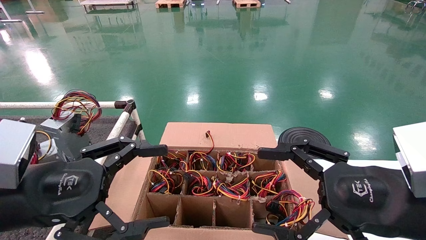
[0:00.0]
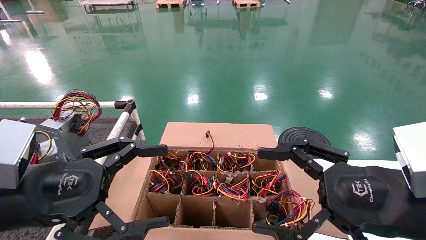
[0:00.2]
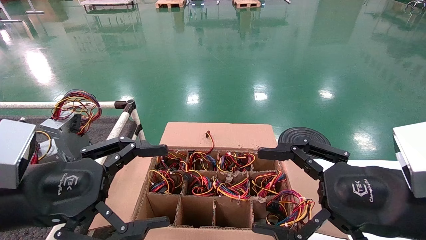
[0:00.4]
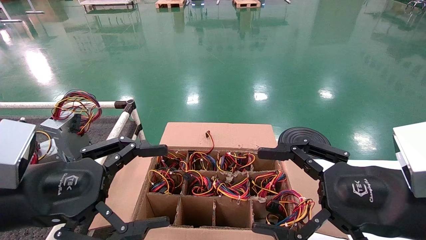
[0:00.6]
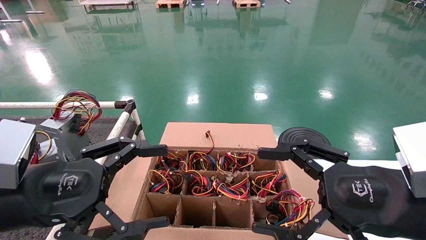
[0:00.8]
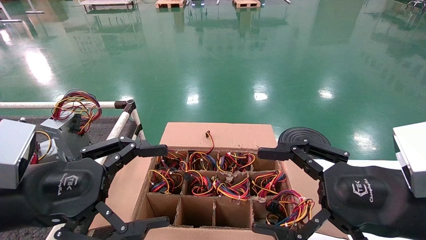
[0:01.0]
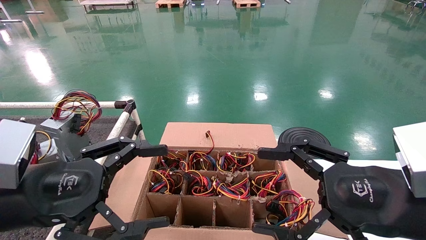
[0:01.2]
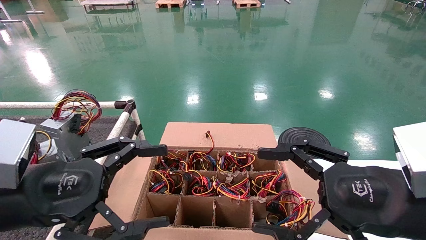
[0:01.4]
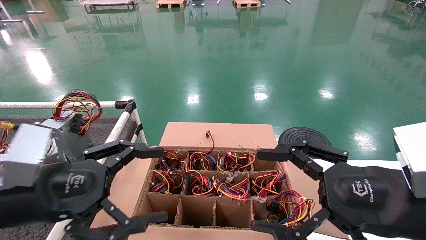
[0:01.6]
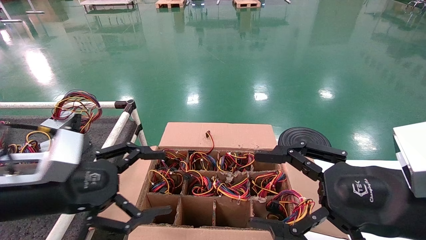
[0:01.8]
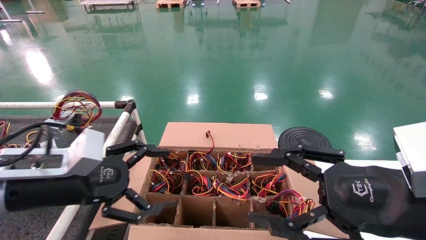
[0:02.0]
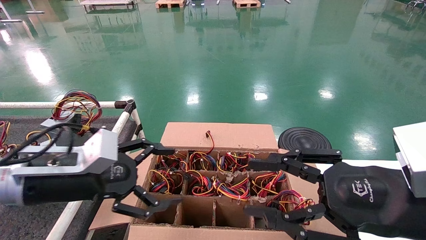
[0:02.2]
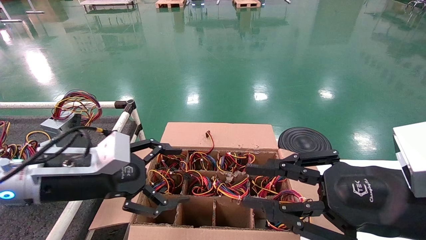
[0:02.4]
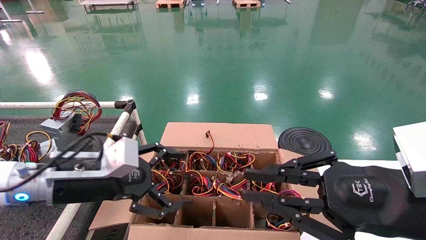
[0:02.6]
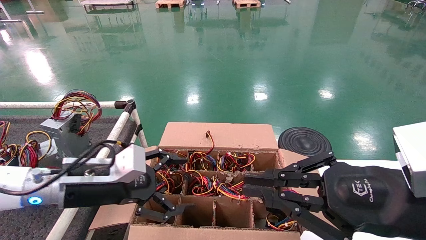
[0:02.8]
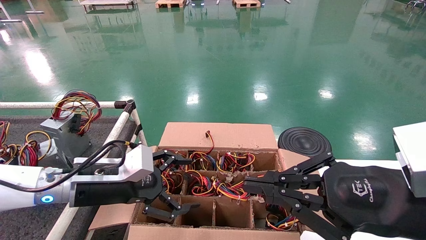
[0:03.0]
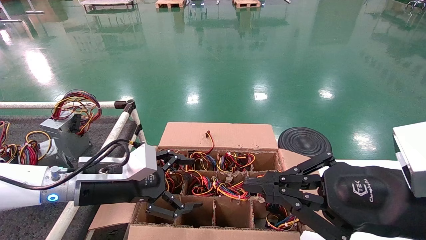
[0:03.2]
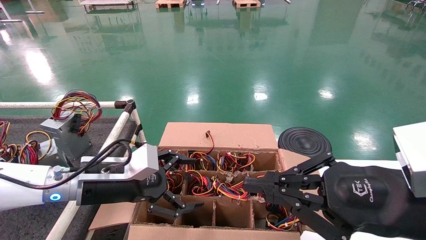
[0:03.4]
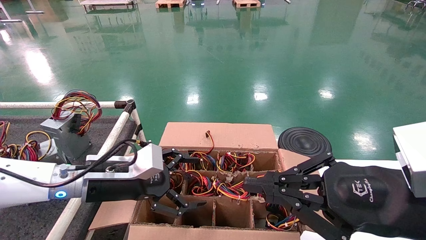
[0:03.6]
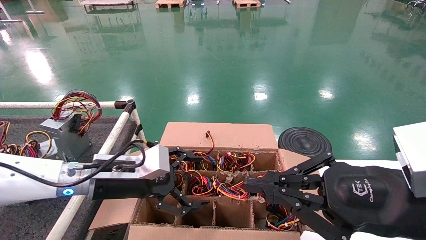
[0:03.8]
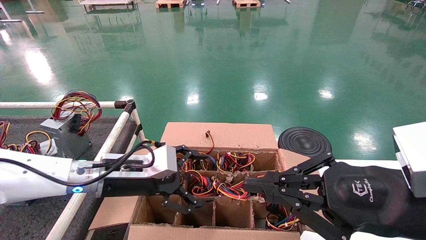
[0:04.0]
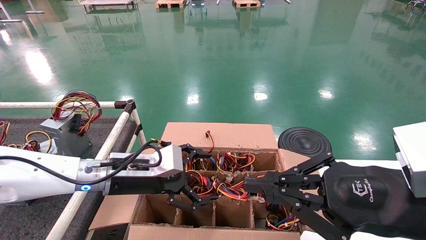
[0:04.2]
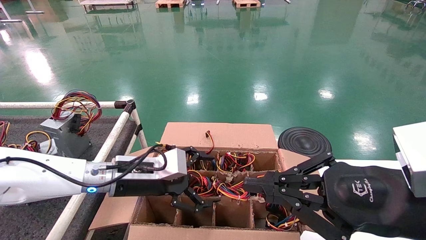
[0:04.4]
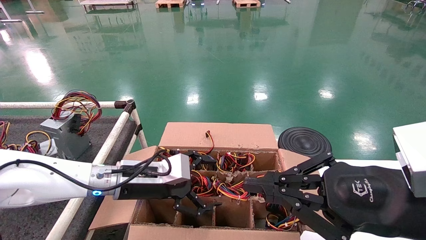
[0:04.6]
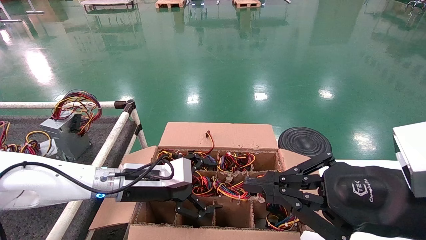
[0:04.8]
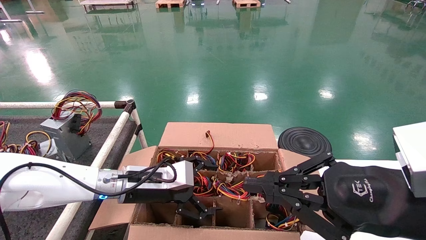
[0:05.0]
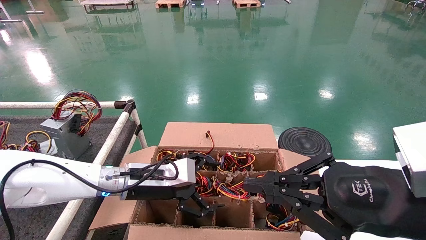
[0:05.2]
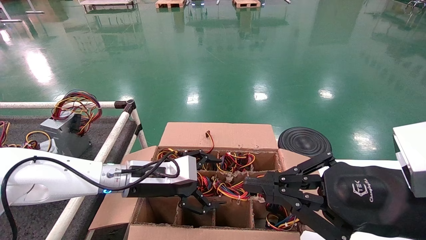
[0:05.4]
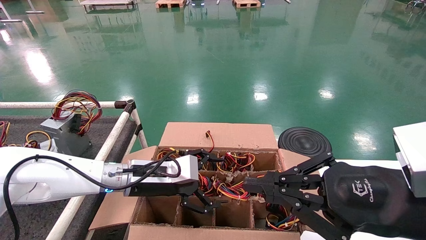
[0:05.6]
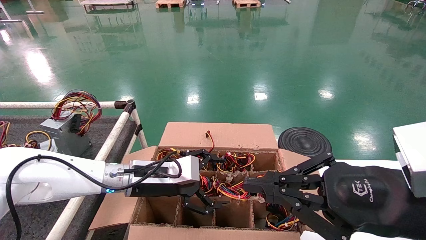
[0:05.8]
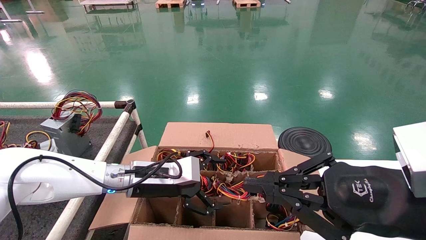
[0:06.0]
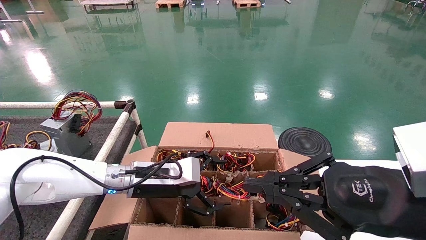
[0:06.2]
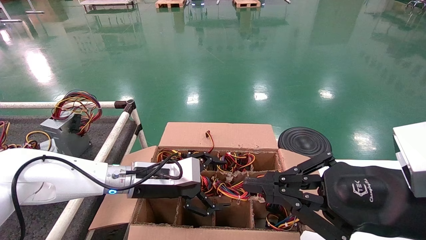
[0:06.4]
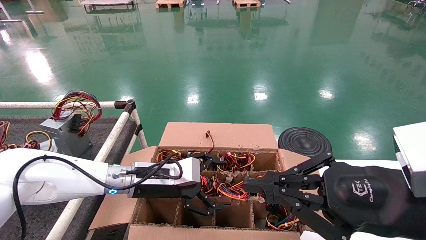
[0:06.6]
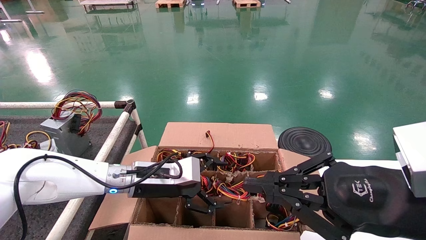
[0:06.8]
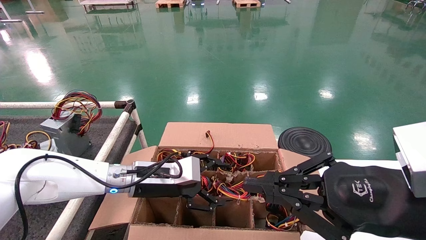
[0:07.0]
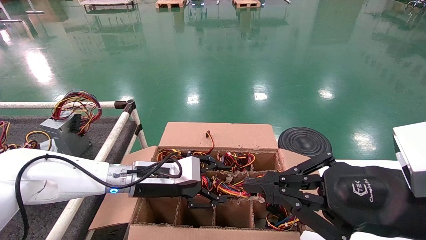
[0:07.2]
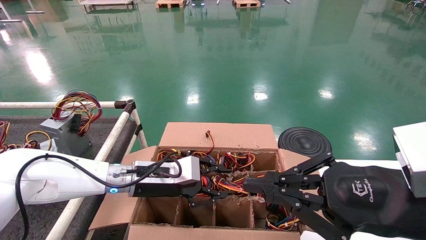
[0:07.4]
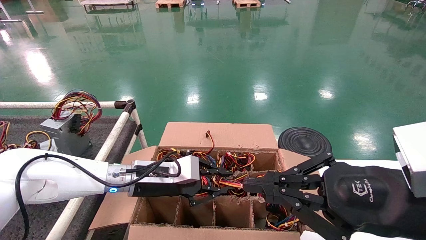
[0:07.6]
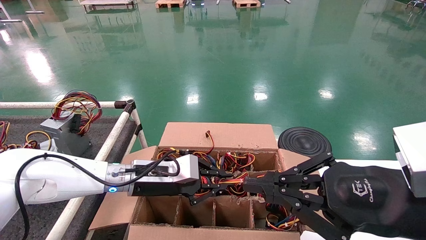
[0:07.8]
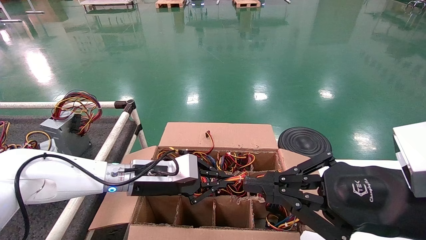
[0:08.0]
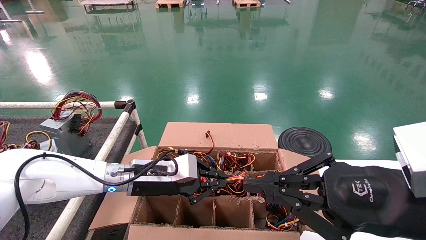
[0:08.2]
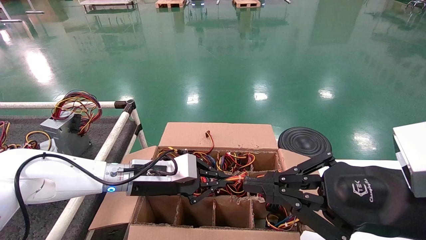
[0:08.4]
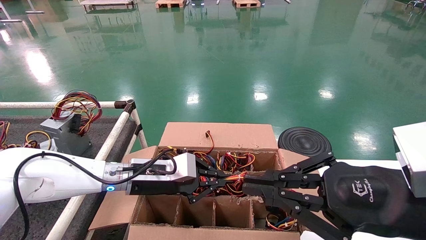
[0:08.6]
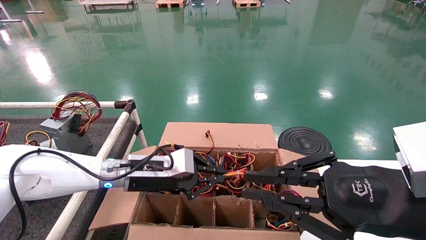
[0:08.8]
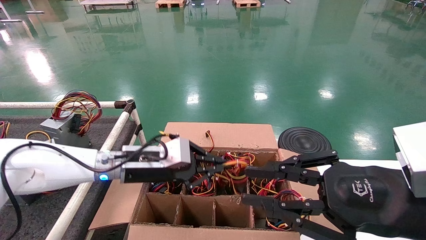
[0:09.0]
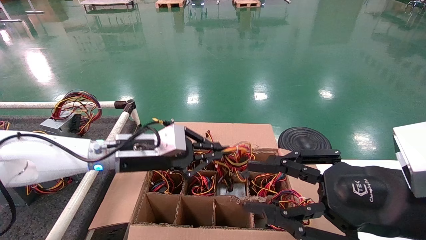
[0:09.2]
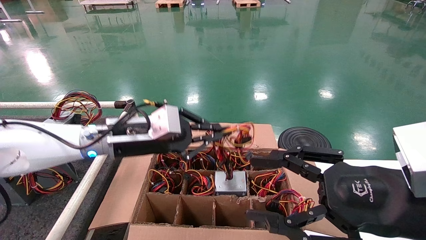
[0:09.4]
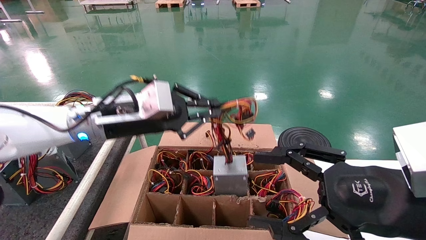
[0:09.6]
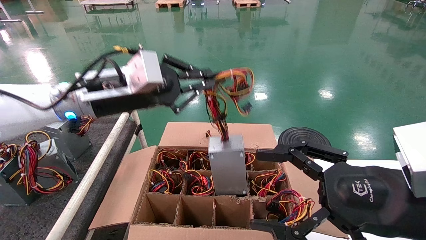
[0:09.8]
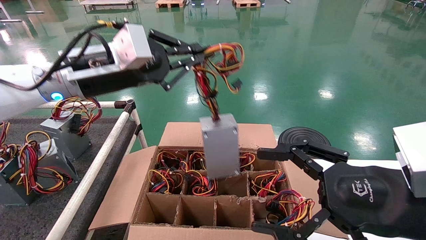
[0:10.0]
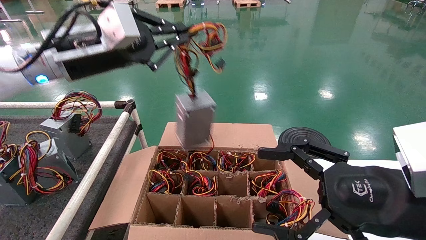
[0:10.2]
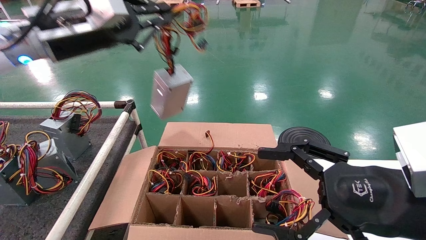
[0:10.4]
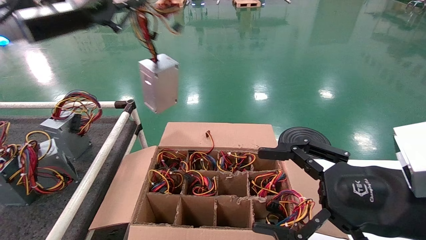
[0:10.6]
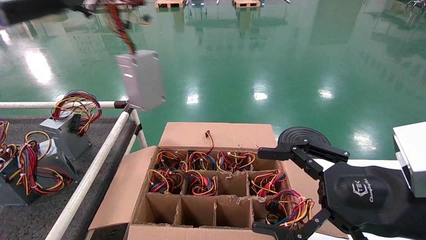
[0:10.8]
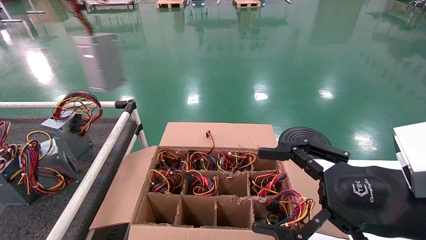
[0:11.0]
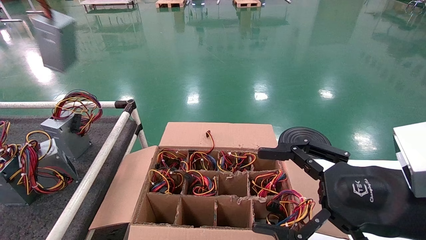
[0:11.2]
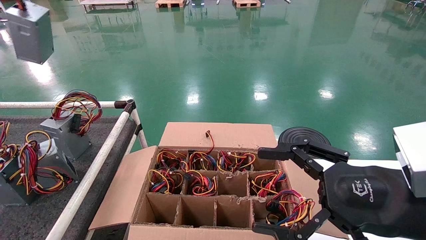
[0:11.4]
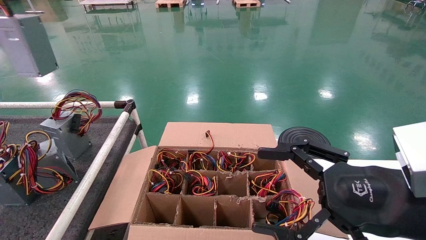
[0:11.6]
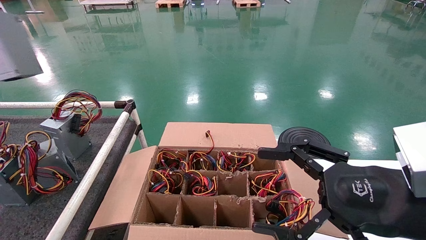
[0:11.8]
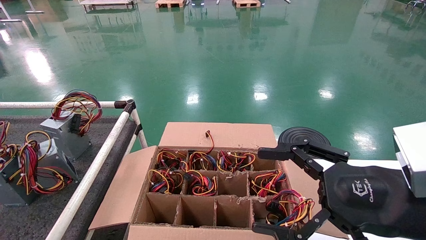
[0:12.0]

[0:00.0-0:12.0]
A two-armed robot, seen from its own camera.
Step, 1.8 to 8.2 s: Grab and lift the power supply from the large box.
0.0 to 1.6 s: The grippers stay close to where they were, moving slightly.
1.6 to 3.0 s: The right gripper closes, while the left gripper travels forward by about 10 cm.
3.0 to 4.4 s: The left gripper moves about 5 cm.
4.4 to 6.0 s: The grippers make only small movements.
6.0 to 7.6 s: The left gripper closes its fingers.
7.6 to 9.0 s: The left gripper closes up.
9.0 to 10.4 s: The left gripper heads upward, covering approximately 25 cm; the right gripper opens up.
10.4 to 12.0 s: The left gripper shifts some 30 cm to the left and upward.

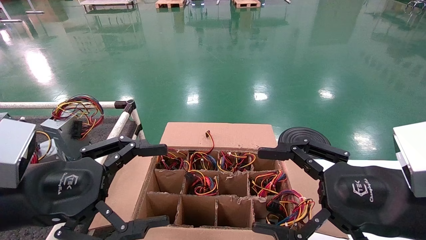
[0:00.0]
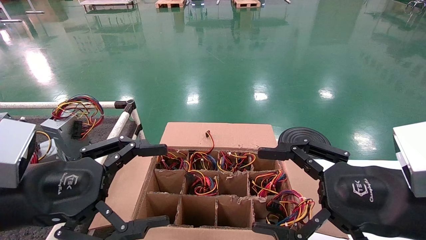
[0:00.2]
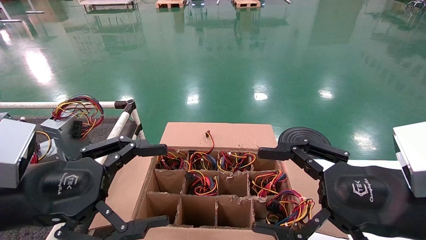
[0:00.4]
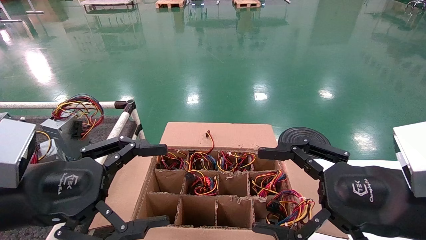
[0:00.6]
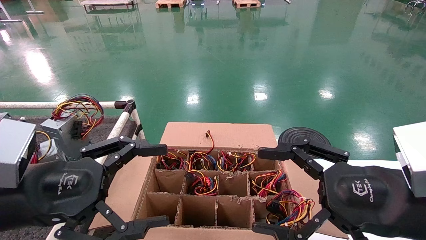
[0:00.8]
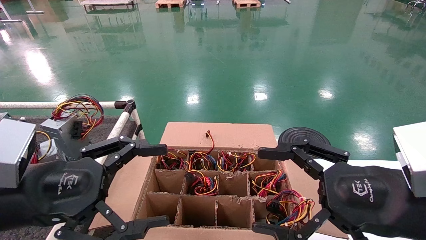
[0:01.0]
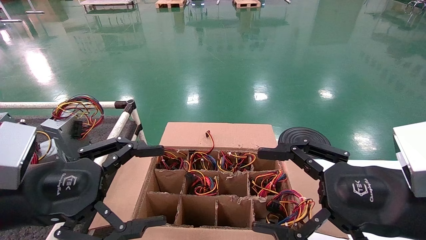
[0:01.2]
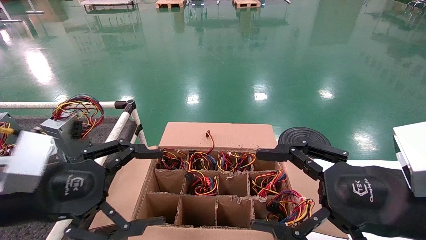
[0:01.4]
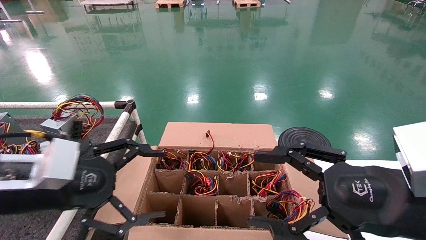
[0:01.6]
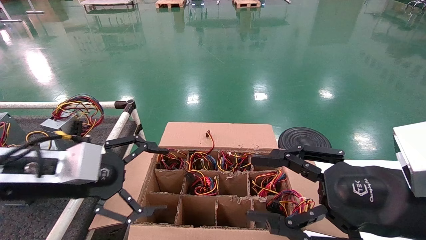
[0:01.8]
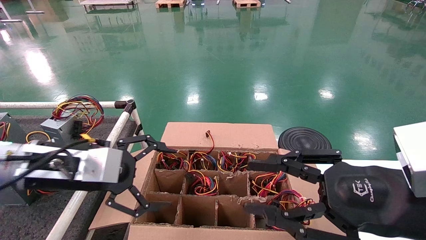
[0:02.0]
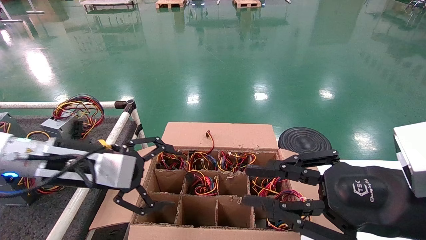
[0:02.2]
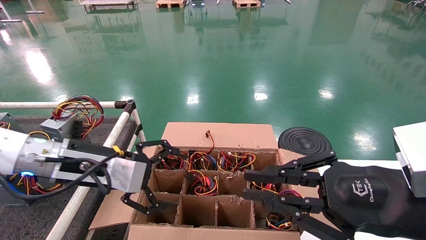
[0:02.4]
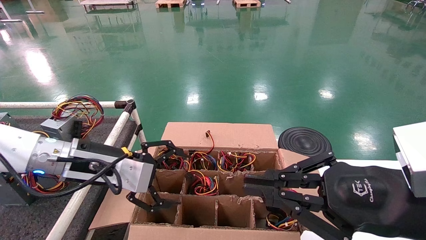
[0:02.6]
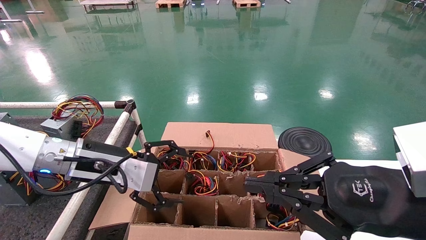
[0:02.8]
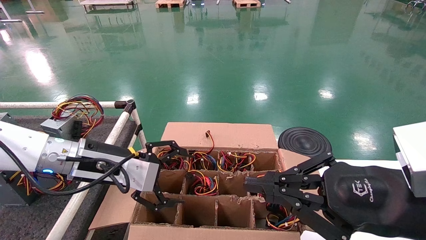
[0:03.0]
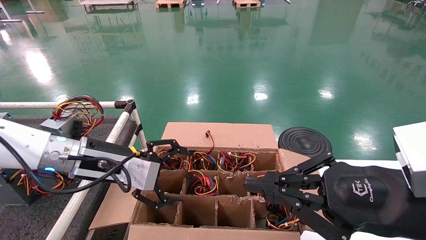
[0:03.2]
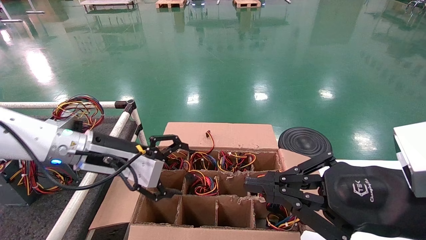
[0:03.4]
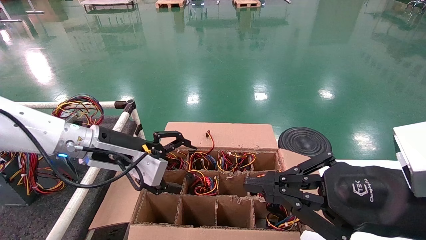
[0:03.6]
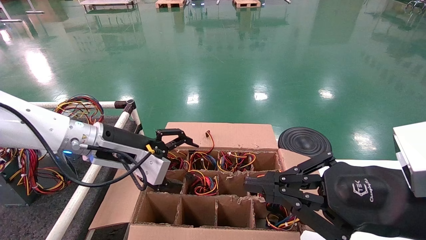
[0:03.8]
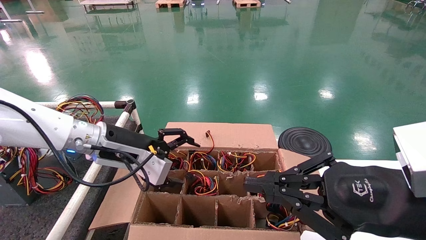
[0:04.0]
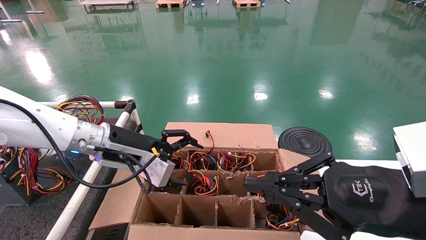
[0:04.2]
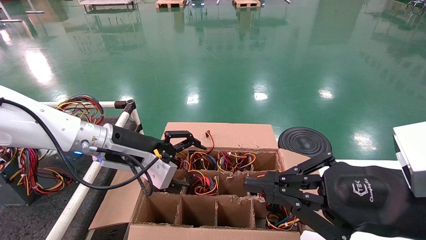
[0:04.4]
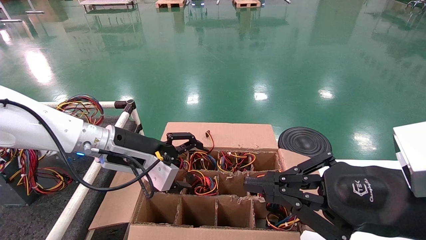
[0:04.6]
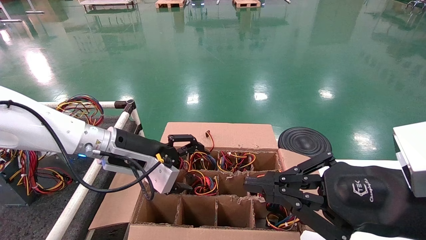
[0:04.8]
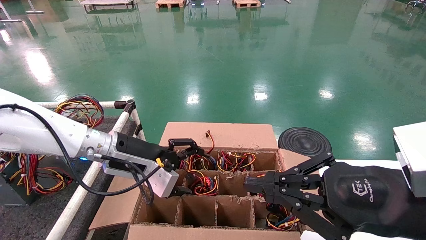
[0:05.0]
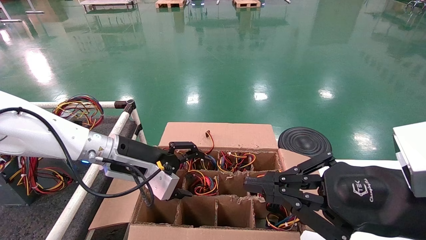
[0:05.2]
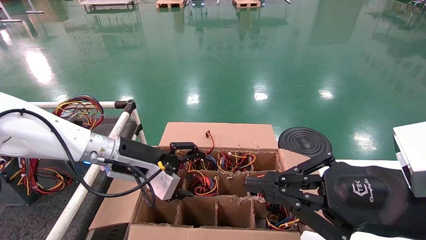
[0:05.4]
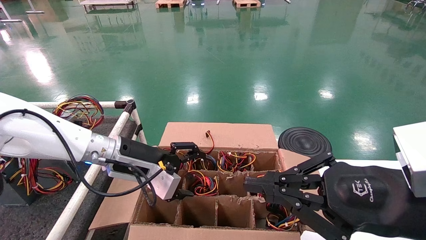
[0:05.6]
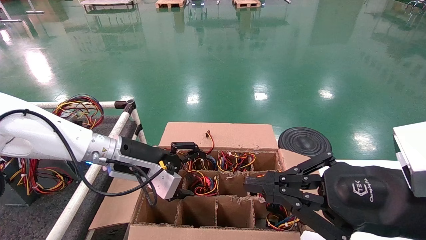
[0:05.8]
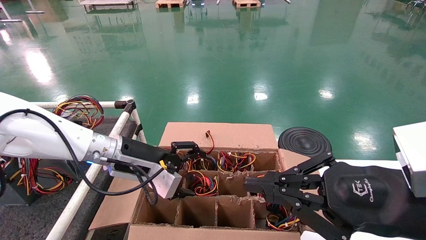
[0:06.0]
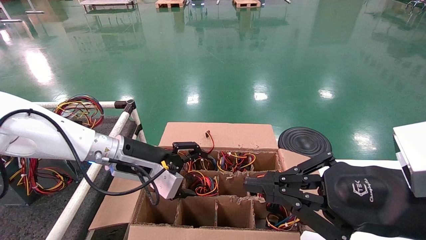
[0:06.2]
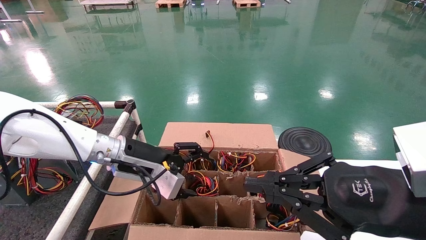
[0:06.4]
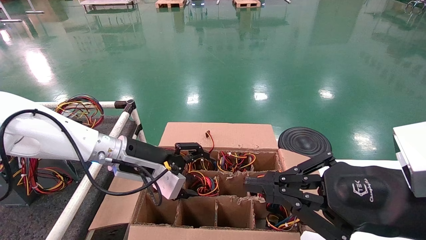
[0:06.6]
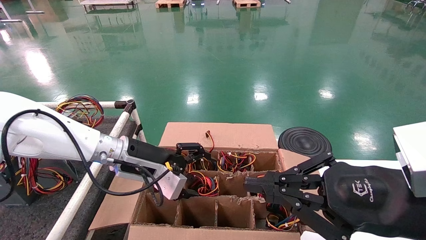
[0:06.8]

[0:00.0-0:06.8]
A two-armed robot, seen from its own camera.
0.0 to 1.4 s: The grippers make only small movements.
1.4 to 2.8 s: The left gripper heads forward, covering approximately 10 cm, while the right gripper closes up.
2.8 to 4.0 s: The left gripper shifts by approximately 5 cm.
4.0 to 6.8 s: The grippers stay close to where they were, moving slightly.
